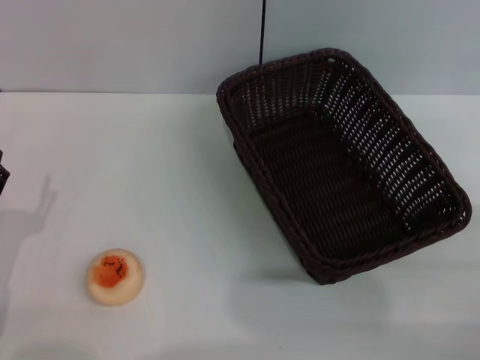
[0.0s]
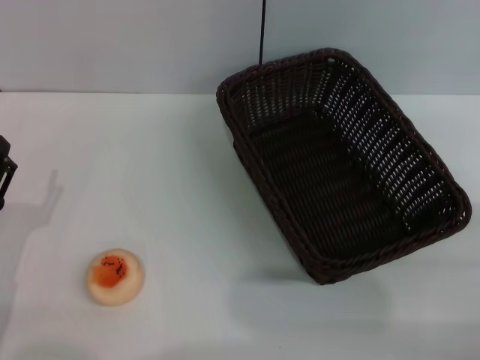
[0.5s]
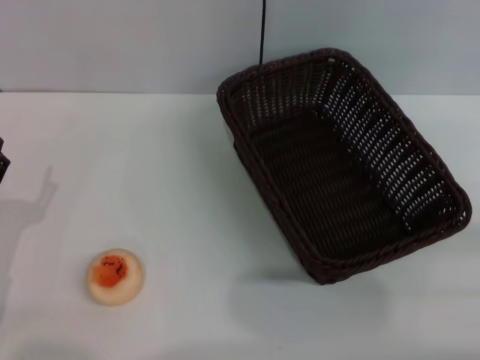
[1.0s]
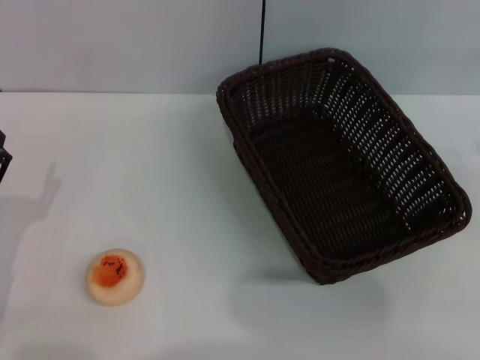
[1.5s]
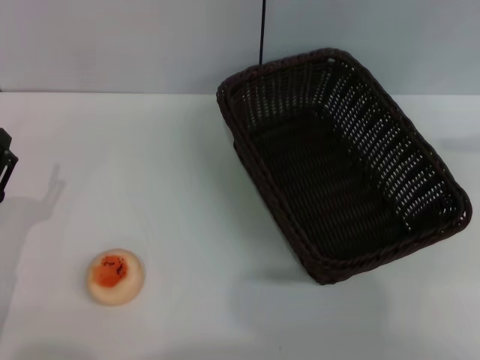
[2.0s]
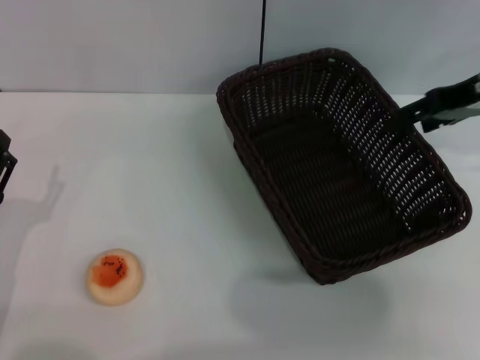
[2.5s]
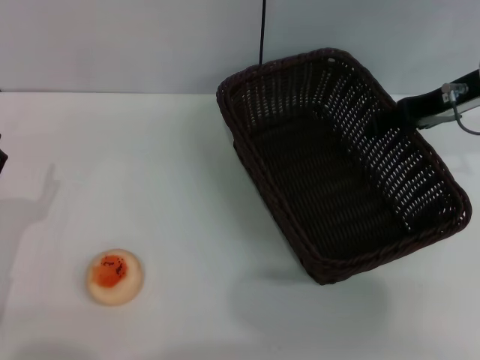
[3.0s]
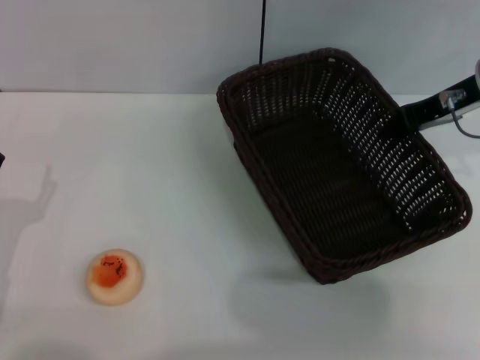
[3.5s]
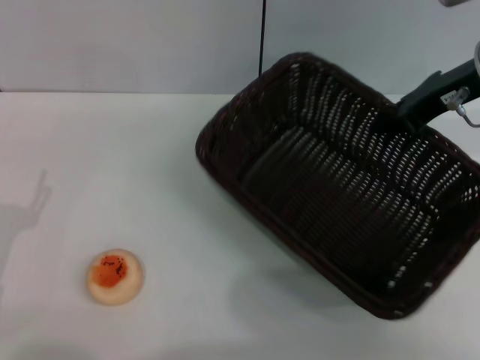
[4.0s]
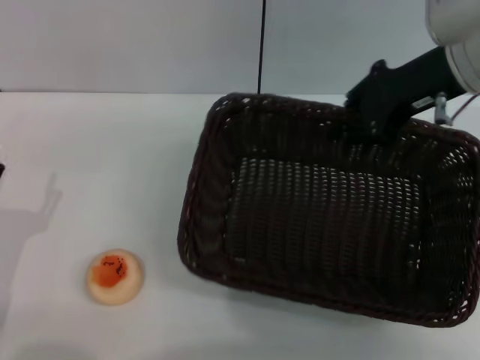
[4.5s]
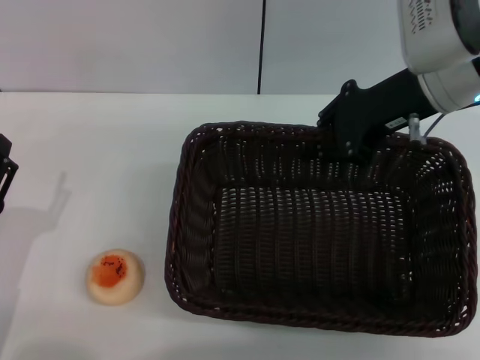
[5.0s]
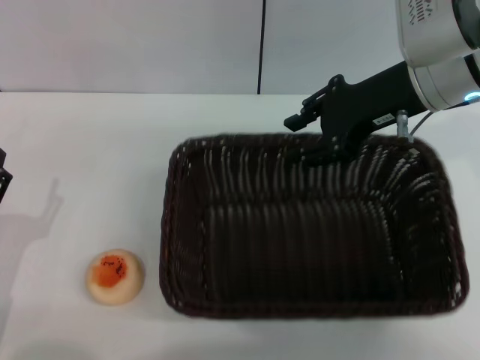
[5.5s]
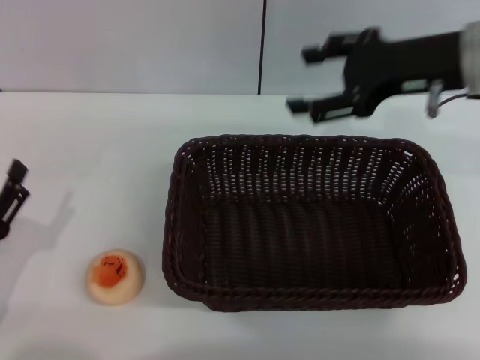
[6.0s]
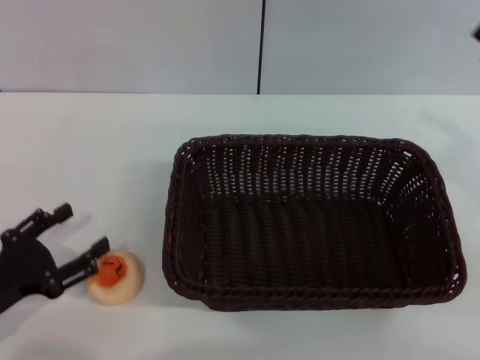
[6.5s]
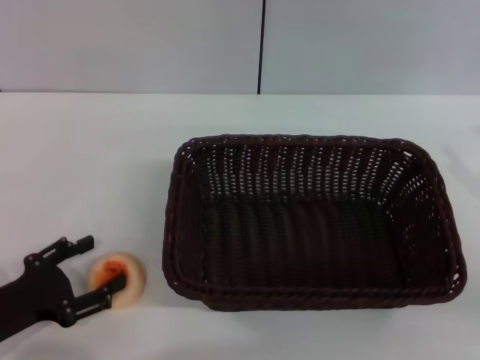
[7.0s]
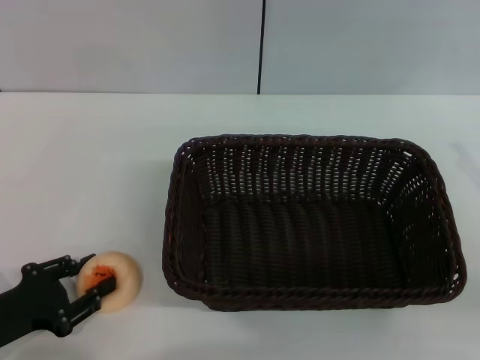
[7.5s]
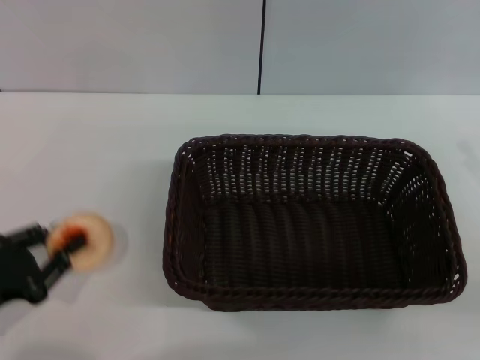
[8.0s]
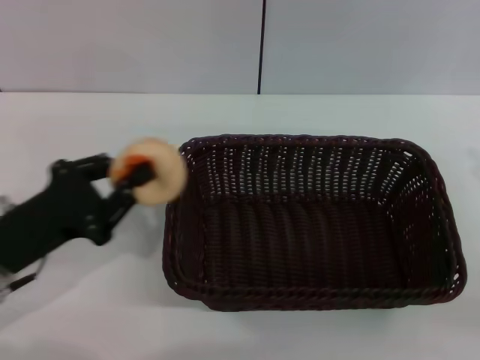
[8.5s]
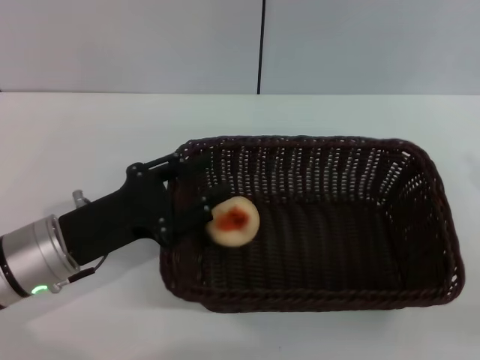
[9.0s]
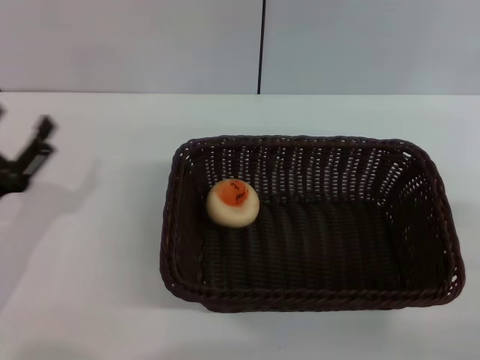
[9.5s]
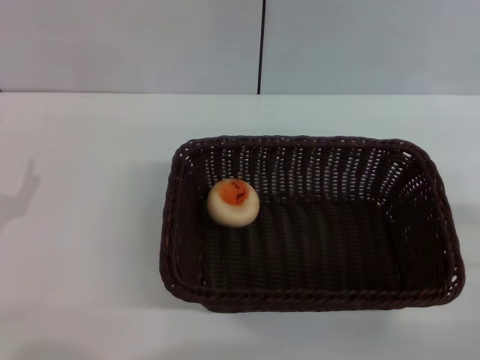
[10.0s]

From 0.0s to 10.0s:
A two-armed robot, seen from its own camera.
Step, from 0.0s to 5.5s: Move the basket to the center of view with the right gripper.
Step, from 6.5s to 8.0s: Pick up the egg yolk pastry with the left gripper.
Step, from 8.5s to 9.0s: Place the egg yolk pastry into the basket with the left gripper.
From 0.0s to 2.0s: The right gripper travels upward and forward by approximately 25 cm.
From 2.0s to 4.0s: The right gripper travels to the left by about 15 cm, and closes its fingers.
From 4.0s to 6.0s: The right gripper opens its fingers.
From 6.0s to 8.0s: The left gripper closes its fingers, while the right gripper is displaced to the right, backward and downward by roughly 25 cm.
From 8.0s to 10.0s: The left gripper travels to the right and back again, roughly 10 cm each way, and opens up. Meanwhile the right gripper ends up about 5 cm from where it was.
